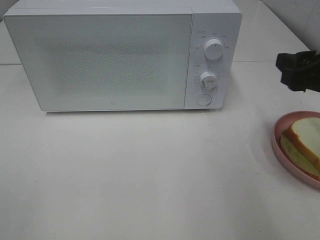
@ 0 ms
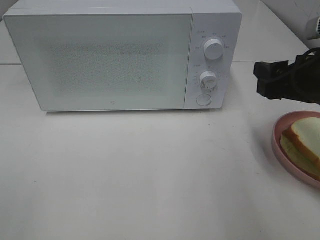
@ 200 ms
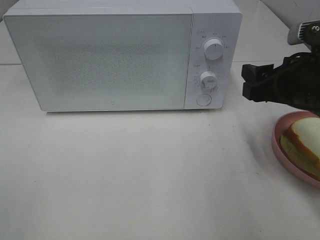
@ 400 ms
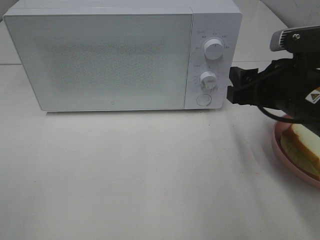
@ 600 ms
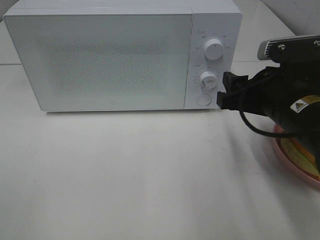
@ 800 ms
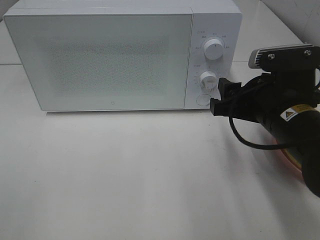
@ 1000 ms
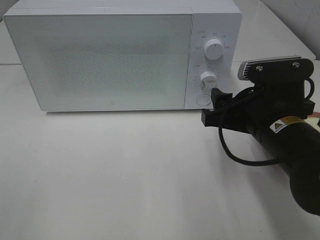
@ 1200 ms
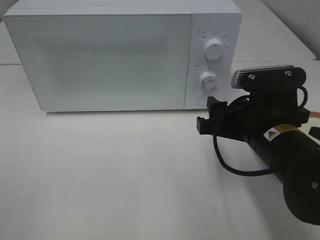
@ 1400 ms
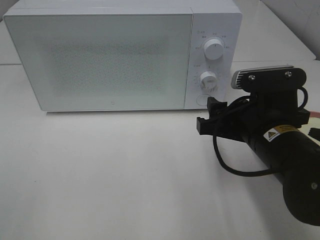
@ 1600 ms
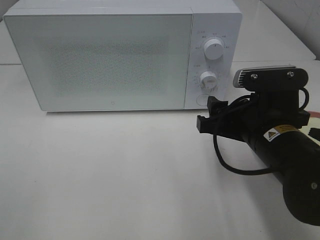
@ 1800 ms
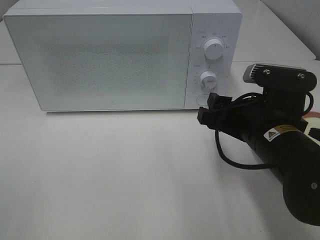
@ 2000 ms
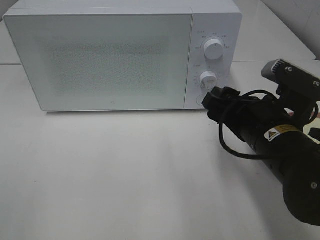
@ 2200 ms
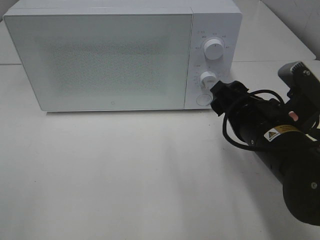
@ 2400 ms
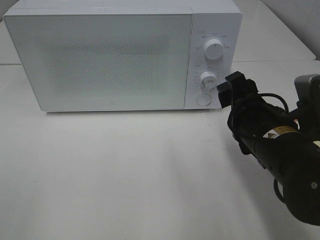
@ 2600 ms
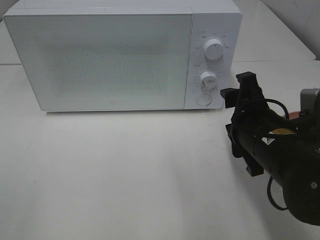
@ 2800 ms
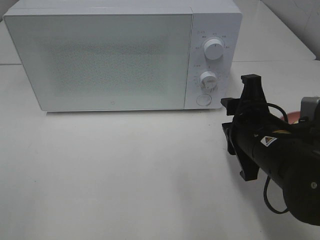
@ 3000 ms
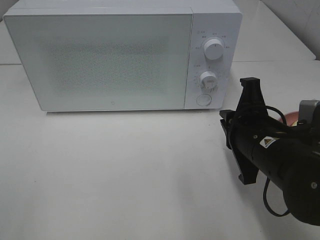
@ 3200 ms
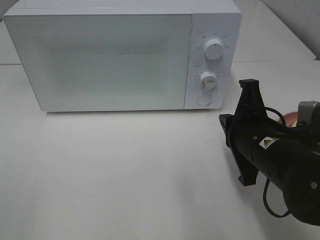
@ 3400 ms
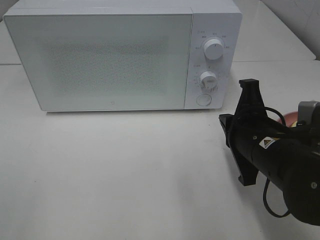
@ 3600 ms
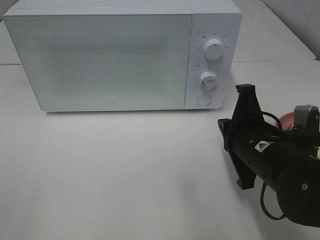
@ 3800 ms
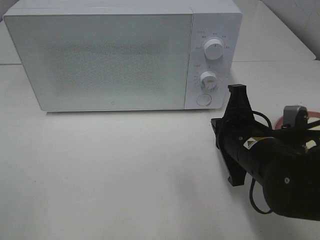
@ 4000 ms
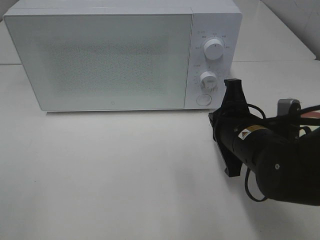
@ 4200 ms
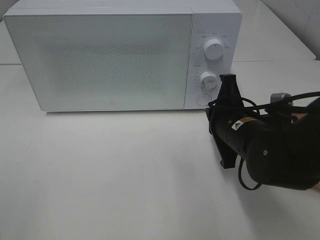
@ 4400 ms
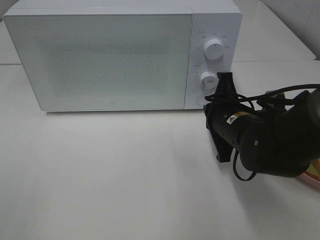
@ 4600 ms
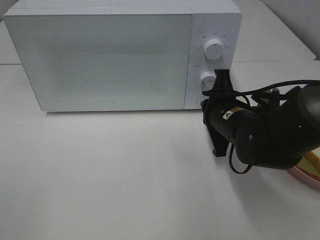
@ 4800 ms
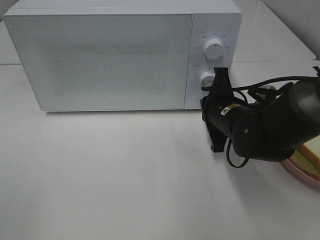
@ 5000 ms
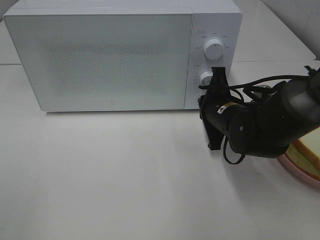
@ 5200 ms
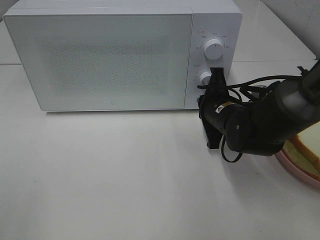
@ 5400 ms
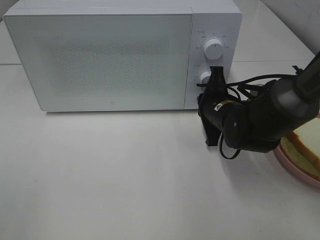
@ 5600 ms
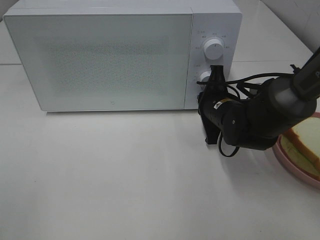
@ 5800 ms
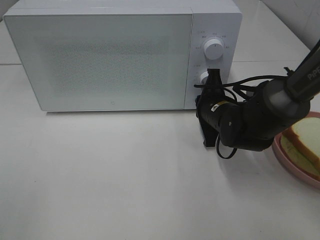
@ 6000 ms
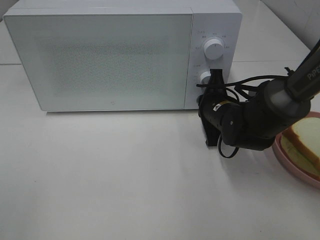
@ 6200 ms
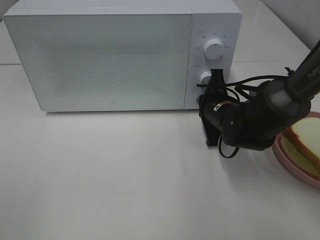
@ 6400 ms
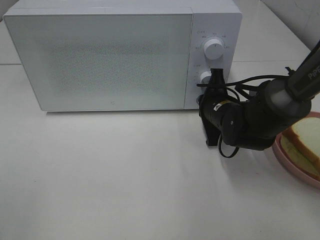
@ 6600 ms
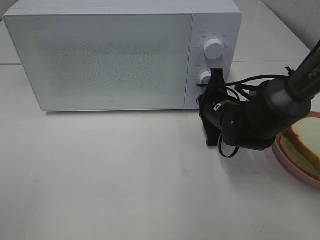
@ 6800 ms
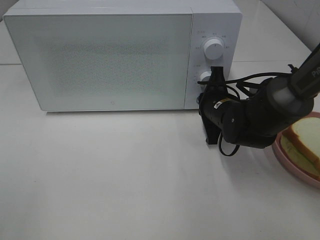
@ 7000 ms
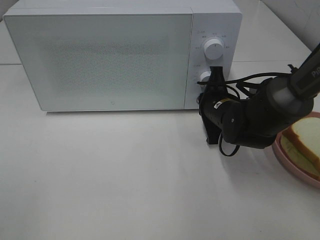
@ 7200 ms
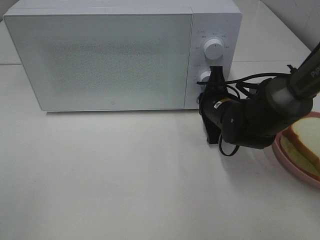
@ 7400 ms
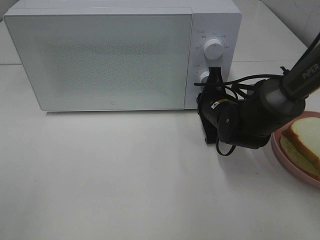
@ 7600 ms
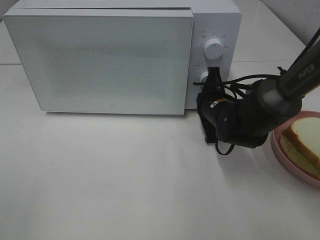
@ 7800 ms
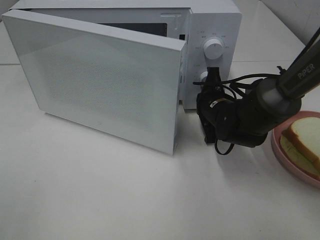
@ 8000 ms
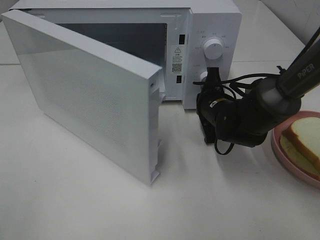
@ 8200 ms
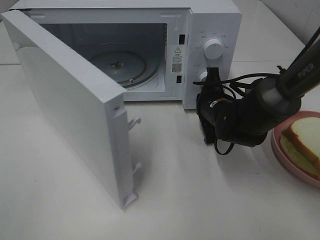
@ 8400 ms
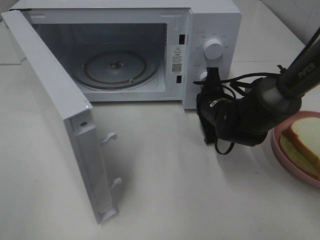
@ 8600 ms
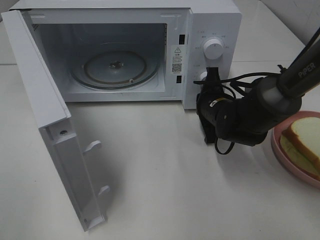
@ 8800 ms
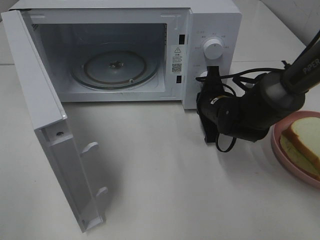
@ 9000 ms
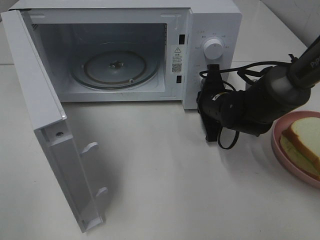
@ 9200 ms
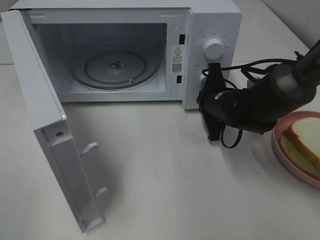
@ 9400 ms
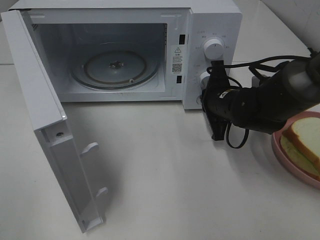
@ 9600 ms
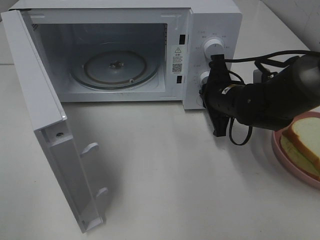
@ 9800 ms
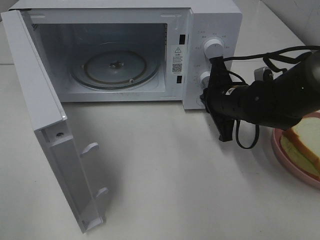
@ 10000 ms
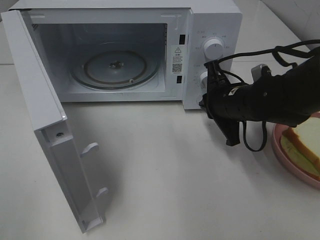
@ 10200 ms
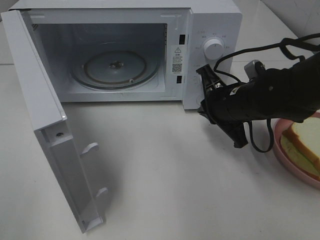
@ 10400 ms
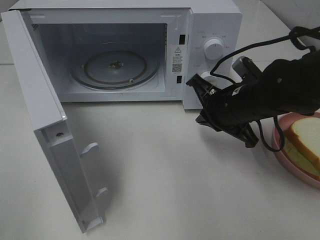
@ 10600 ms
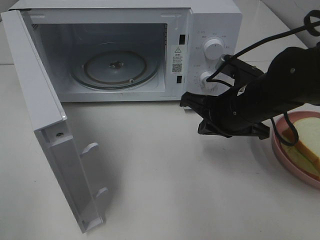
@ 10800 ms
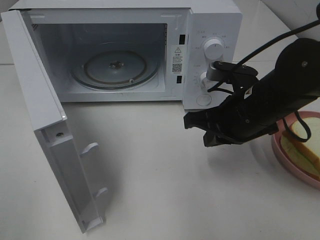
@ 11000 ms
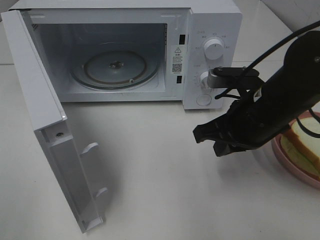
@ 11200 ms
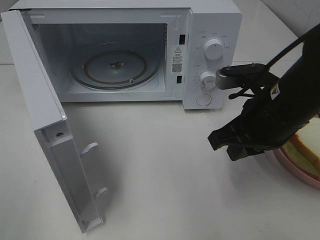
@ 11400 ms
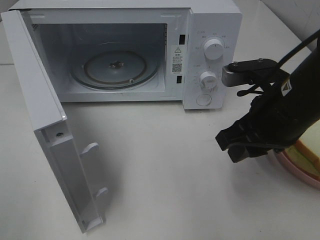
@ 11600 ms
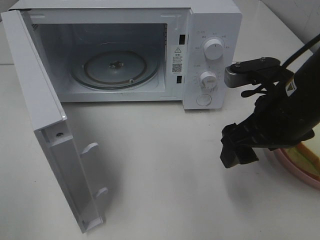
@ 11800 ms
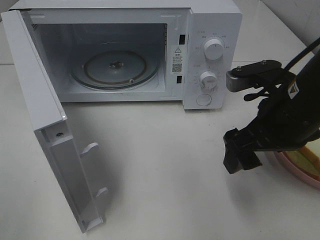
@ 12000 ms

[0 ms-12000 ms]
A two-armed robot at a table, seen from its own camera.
Task of the whole recording: Heat Sandwich.
Step, 0 ms to 10000 ms: Right hand: press the switch.
0 ms to 1600 ms: The right gripper travels to the left and downward by approximately 15 cm.
3000 ms to 4400 ms: The right gripper shifts roughly 5 cm forward, and closes.
4400 ms to 6000 ms: The right gripper travels forward by roughly 10 cm.
6000 ms to 7600 ms: Neither gripper changes place.
9000 ms to 10400 ms: The right gripper shifts approximately 5 cm upward.
10400 ms to 12000 ms: The right gripper shifts about 10 cm backward and upward, and opens up.

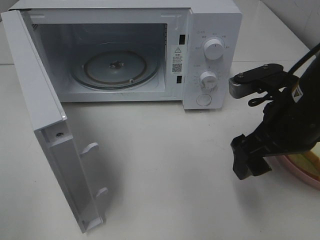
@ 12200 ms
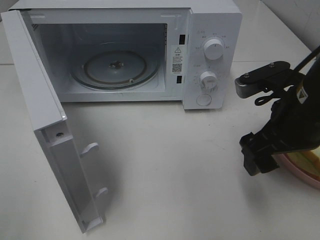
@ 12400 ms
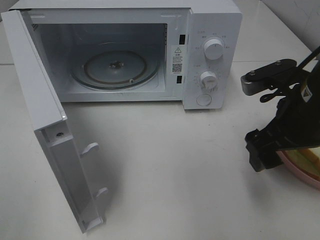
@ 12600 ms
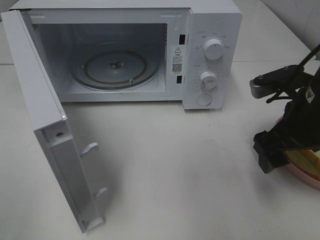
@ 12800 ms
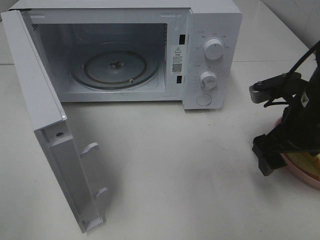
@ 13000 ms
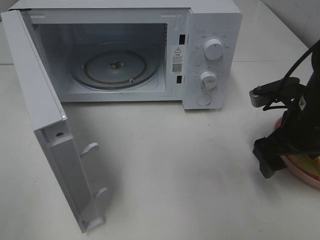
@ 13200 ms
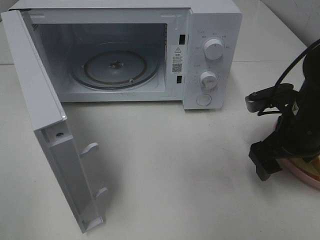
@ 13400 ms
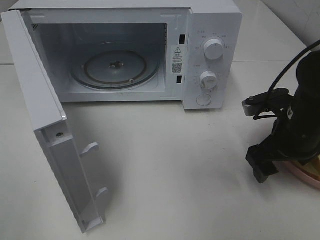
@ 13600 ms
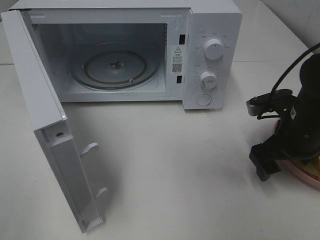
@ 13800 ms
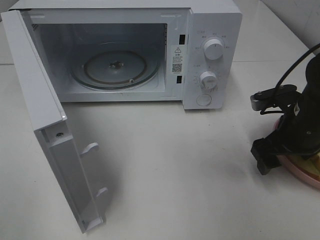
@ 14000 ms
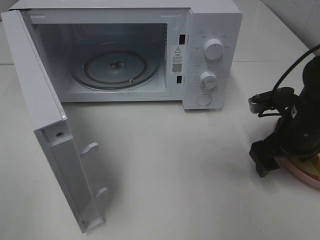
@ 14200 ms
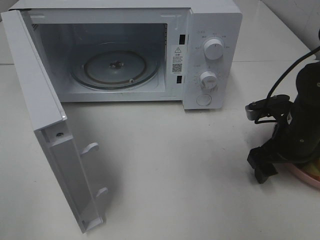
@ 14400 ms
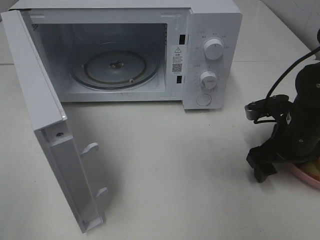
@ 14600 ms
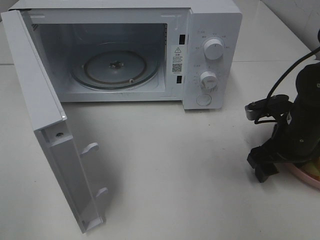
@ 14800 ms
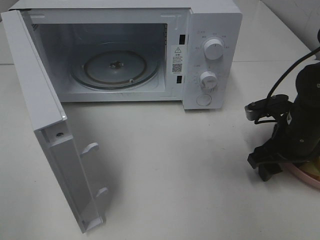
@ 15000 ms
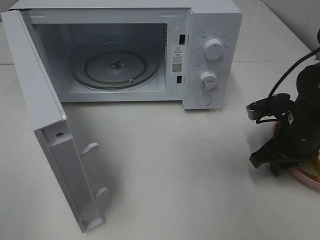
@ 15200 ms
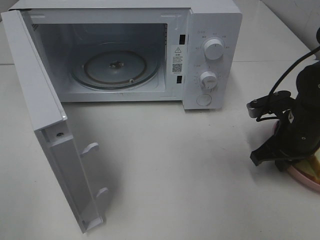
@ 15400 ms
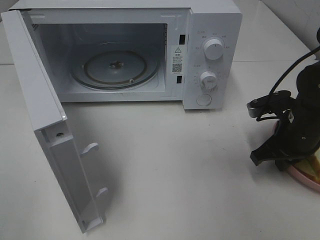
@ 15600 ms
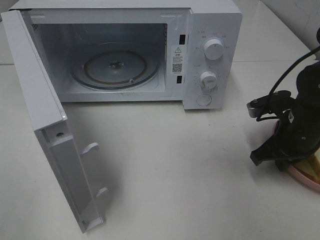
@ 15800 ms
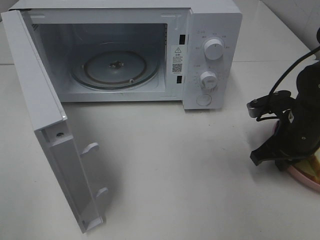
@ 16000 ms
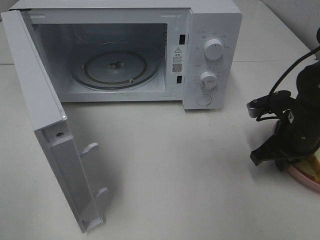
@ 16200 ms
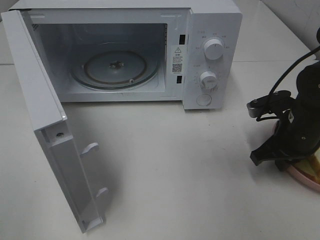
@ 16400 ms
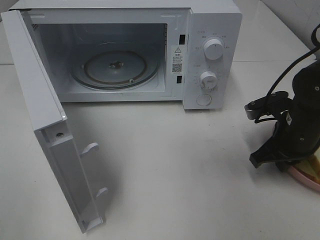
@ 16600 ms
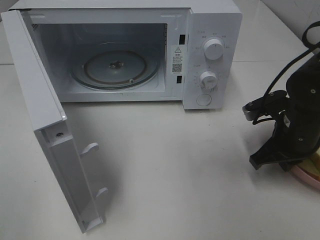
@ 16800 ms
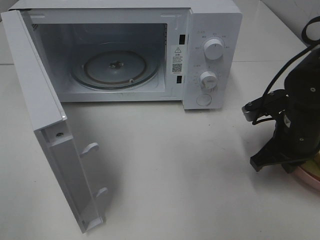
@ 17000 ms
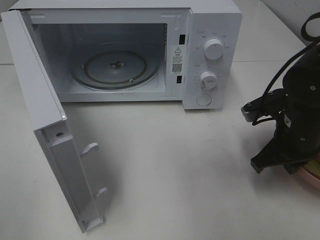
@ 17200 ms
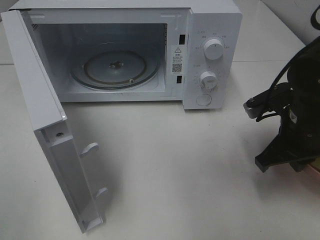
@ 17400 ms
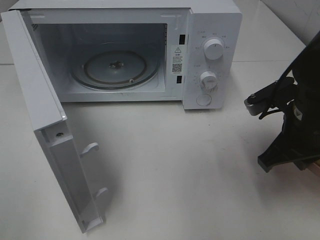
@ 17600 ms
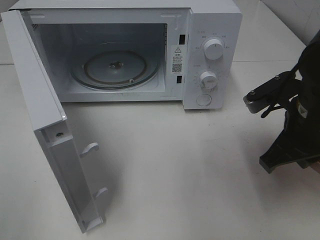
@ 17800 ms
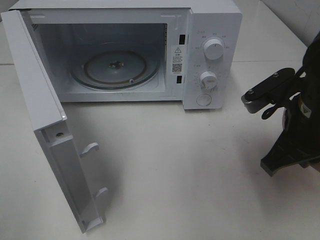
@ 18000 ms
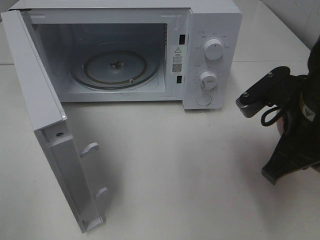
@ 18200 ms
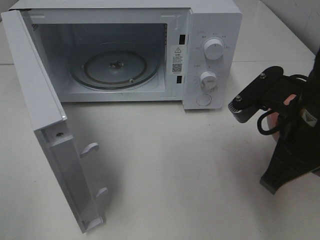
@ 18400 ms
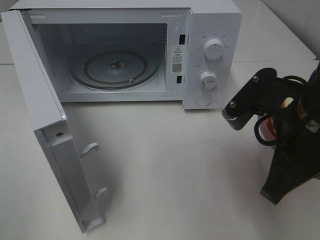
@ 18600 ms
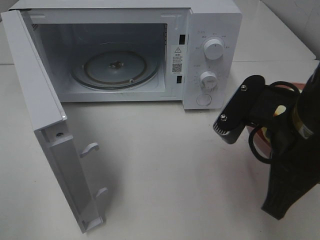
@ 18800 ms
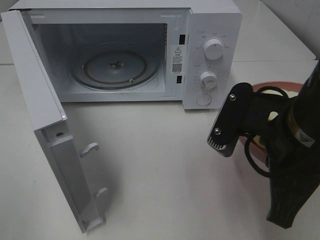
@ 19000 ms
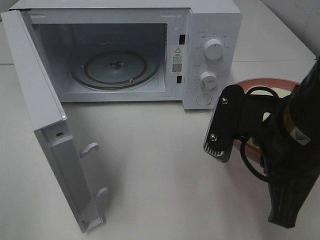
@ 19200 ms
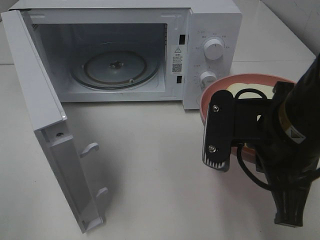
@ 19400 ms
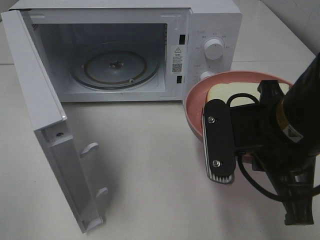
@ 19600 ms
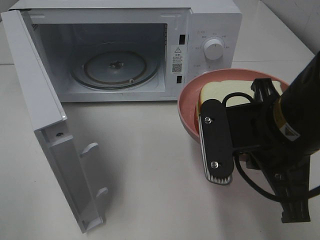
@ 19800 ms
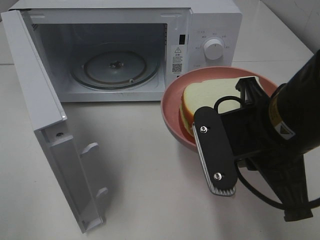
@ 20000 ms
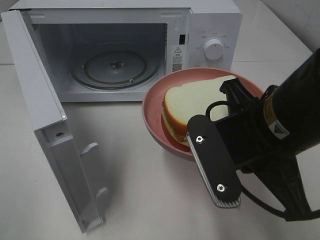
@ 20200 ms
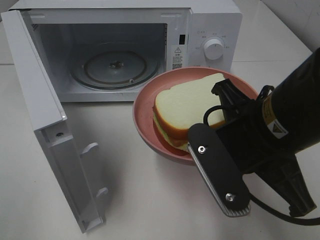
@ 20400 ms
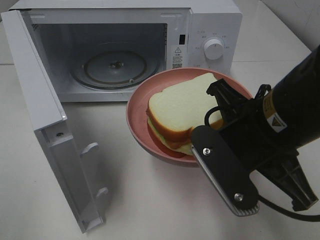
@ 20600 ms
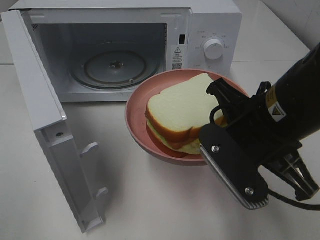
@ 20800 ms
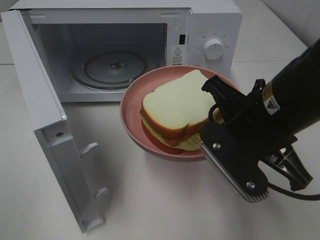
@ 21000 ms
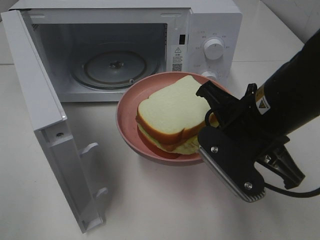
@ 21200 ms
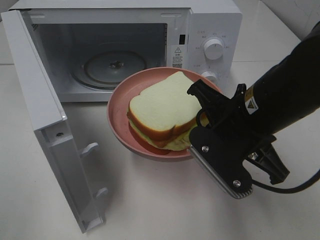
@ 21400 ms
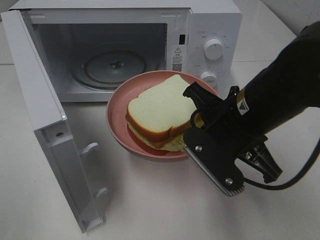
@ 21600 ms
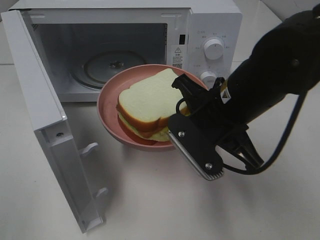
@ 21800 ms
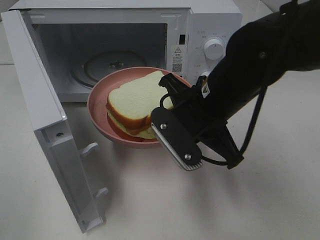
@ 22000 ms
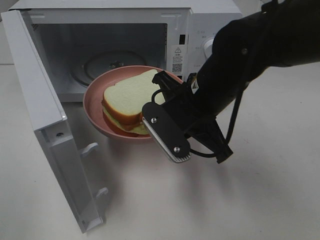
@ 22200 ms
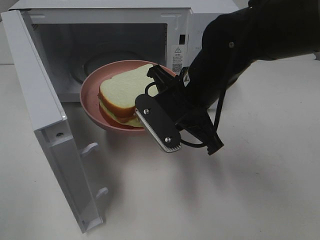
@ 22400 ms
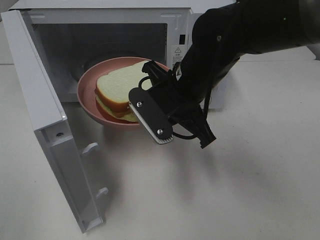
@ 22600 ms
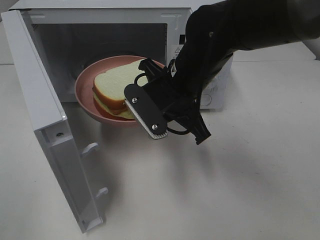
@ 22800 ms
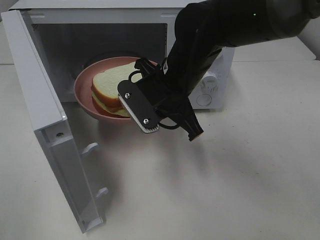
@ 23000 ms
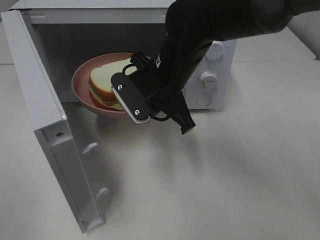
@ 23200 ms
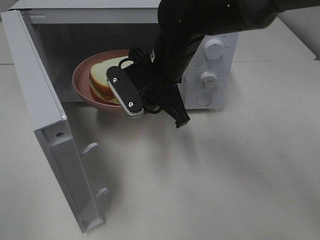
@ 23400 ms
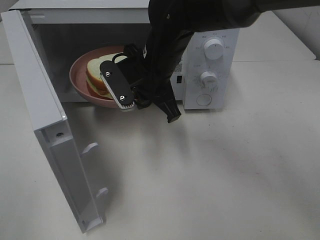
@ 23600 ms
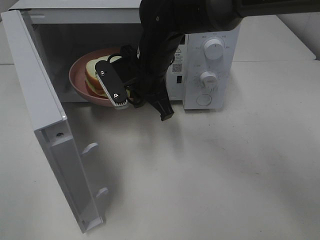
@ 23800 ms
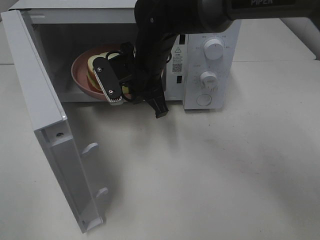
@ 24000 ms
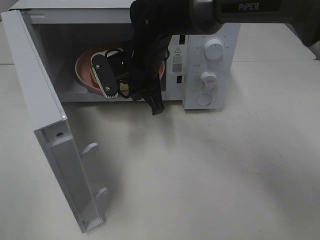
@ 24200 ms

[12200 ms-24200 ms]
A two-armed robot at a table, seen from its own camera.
Task of the whole recording: Heat Sandwich.
Step, 12200 ms to 16600 ms: Right hand: grab the plate with the sandwich.
12200 ms to 13800 ms: The right gripper is displaced downward, to the right and forward by approximately 10 cm.
13800 ms to 15200 ms: The right gripper closes.
15200 ms to 16600 ms: Both grippers stay about where they are.
16600 ms to 18200 ms: The right gripper shifts approximately 15 cm upward, backward and to the left.
18200 ms to 19800 ms: The right gripper moves to the left, about 5 cm.
21200 ms to 22600 ms: The right gripper goes approximately 10 cm forward and to the left.
22600 ms to 24200 ms: The right gripper is displaced forward and to the left by approximately 10 cm.
